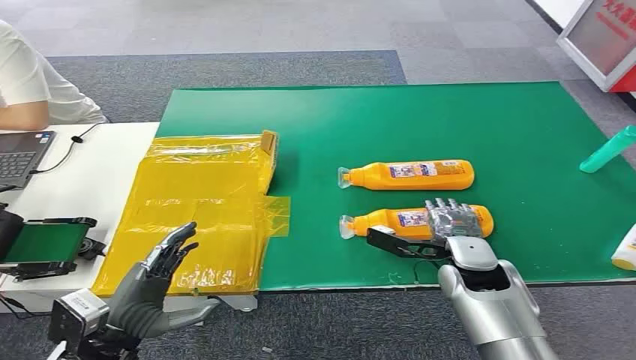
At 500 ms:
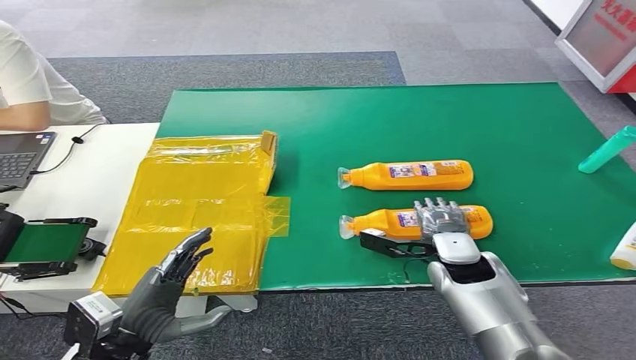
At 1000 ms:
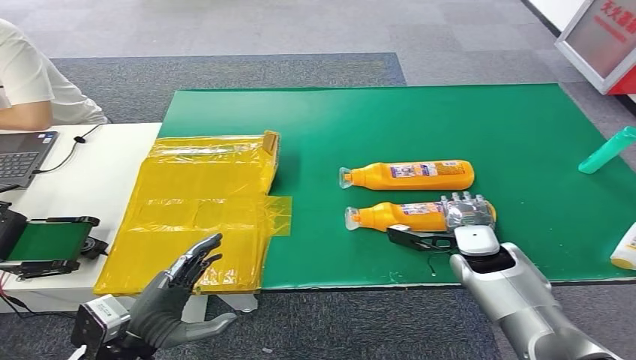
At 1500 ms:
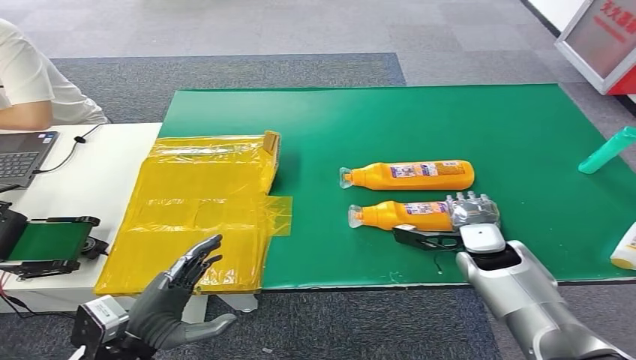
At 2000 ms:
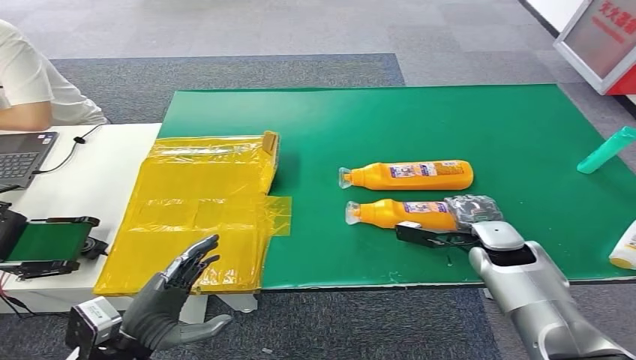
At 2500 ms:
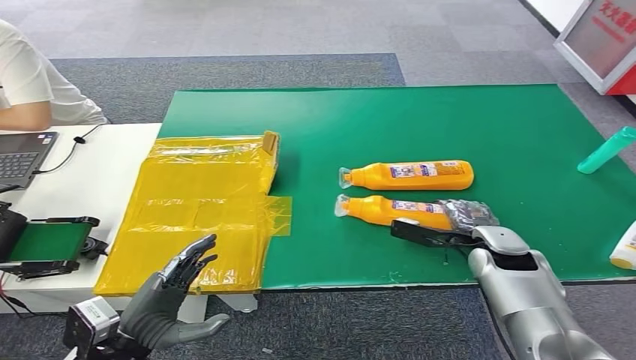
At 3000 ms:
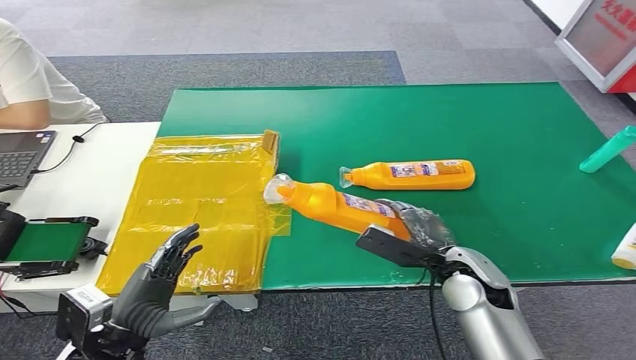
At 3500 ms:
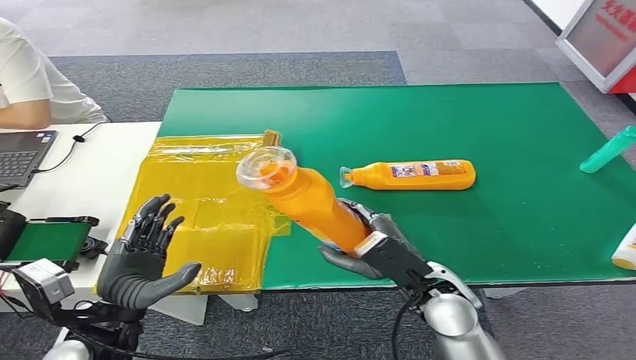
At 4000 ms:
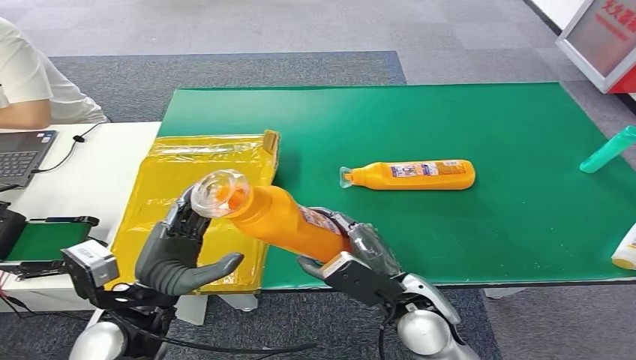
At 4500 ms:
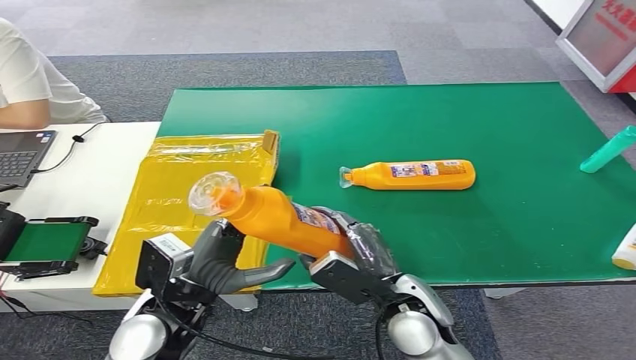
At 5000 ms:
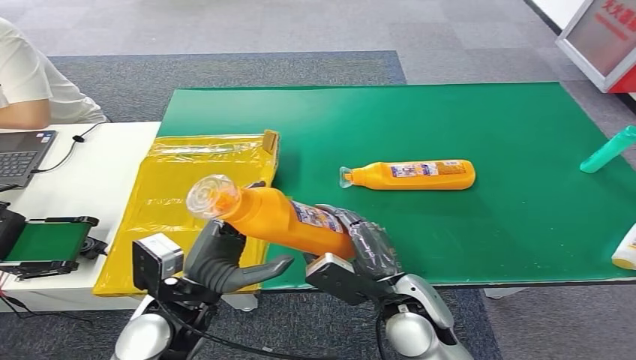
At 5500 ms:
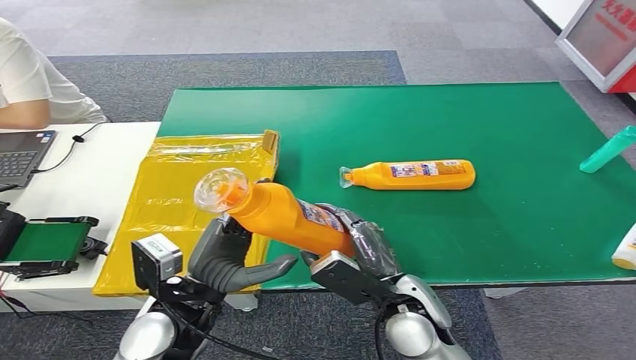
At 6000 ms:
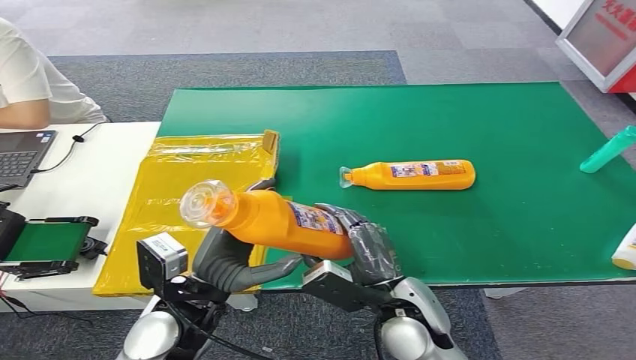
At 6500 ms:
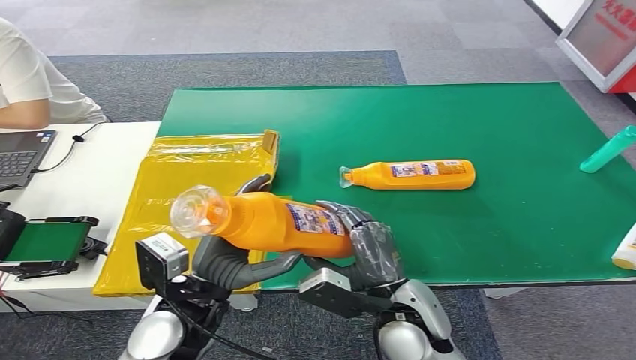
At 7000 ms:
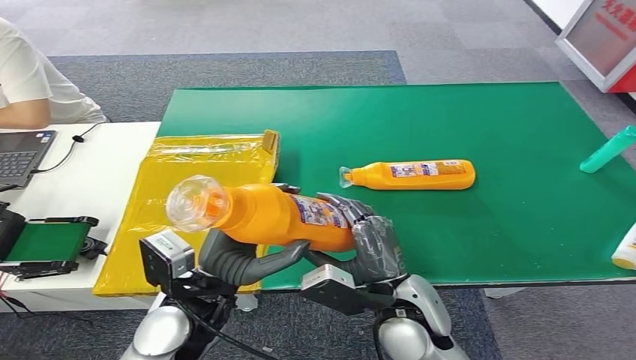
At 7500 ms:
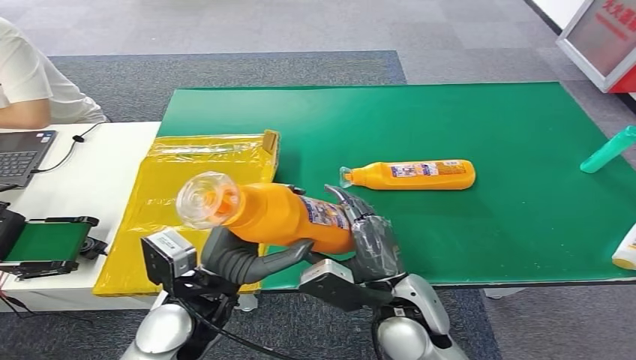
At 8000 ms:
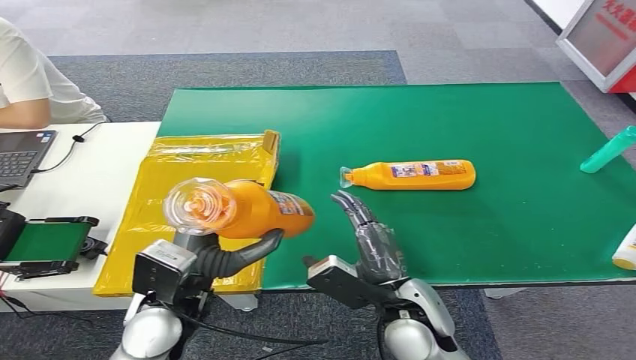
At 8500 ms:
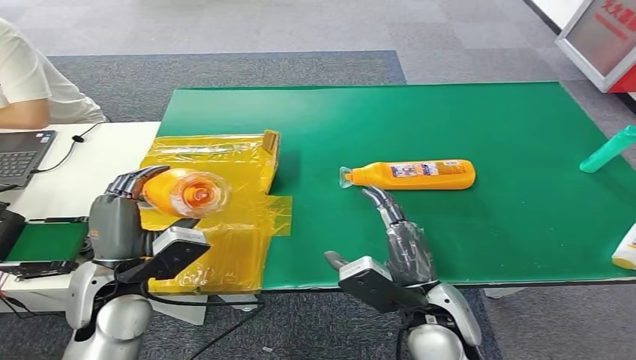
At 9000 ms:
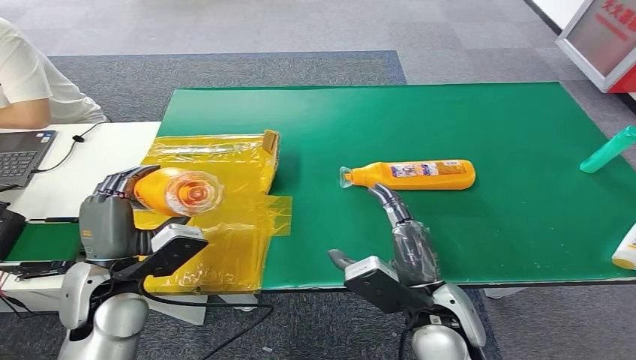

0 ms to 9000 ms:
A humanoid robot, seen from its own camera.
Step, 0 ms to 3500 ms: Pick up the bottle from the table.
4500 ms to 7000 ms: The hands make only small movements.
7000 ms to 9000 ms: The left hand is displaced to the left by about 10 cm.

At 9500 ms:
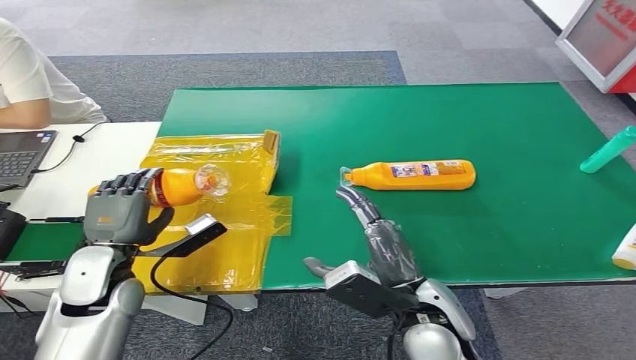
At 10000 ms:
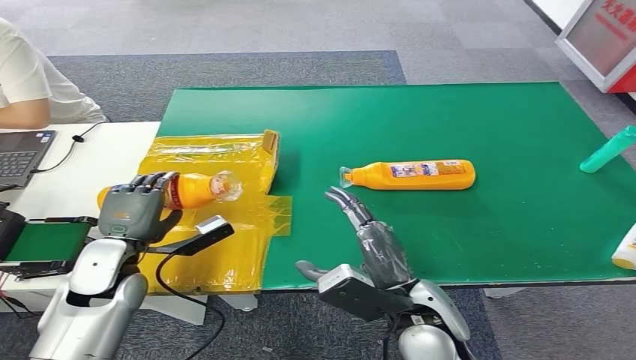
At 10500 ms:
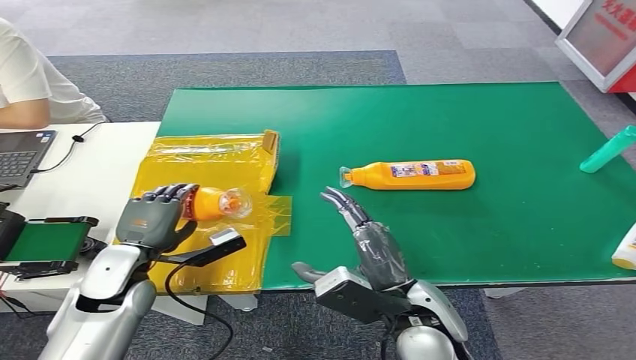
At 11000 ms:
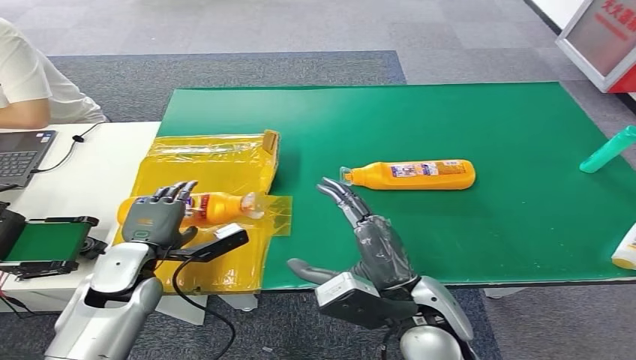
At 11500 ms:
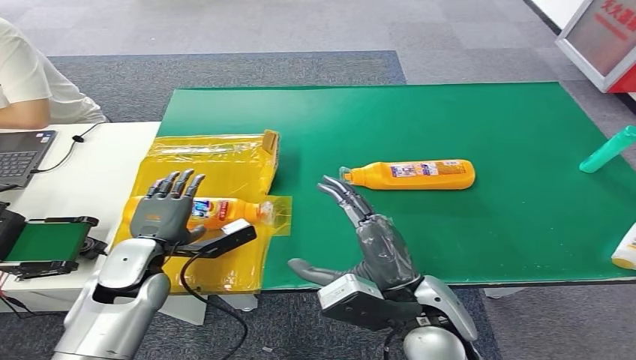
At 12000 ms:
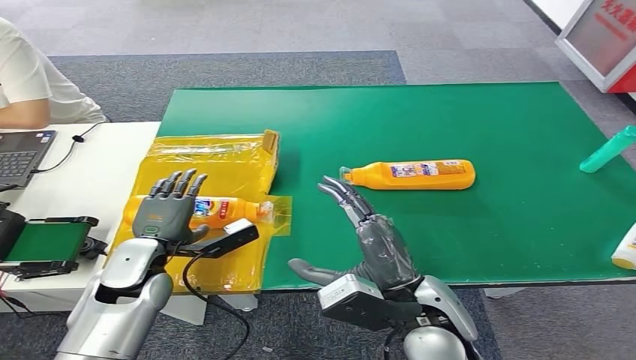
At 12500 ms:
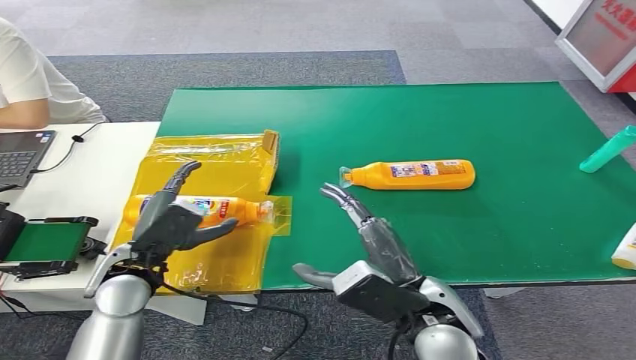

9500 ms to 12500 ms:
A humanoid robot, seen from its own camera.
Step, 9500 ms to 12500 ms: Turn the bottle to the front side.
9500 ms to 11000 ms: The hands move only a little.
11000 ms to 12500 ms: The left hand changes place by about 5 cm.

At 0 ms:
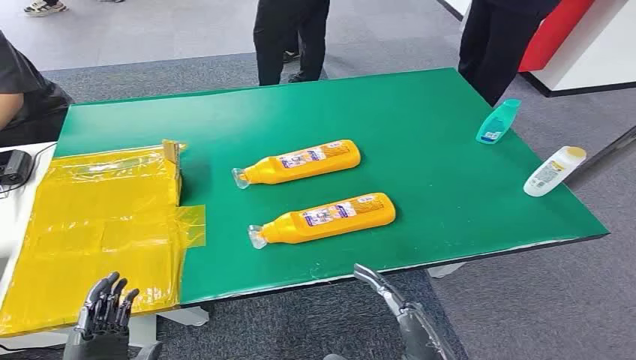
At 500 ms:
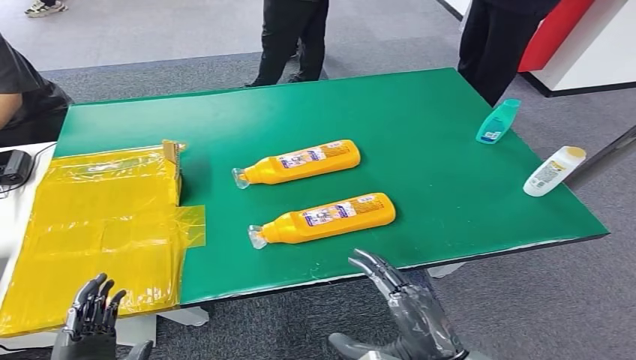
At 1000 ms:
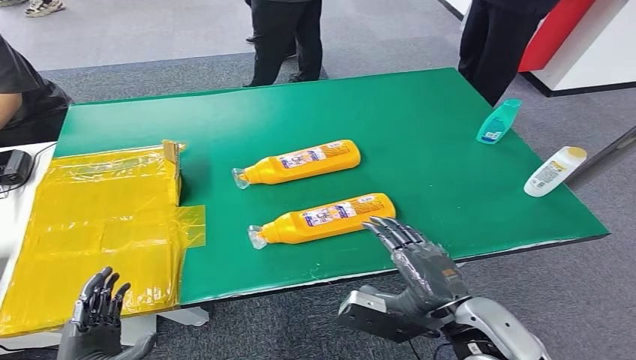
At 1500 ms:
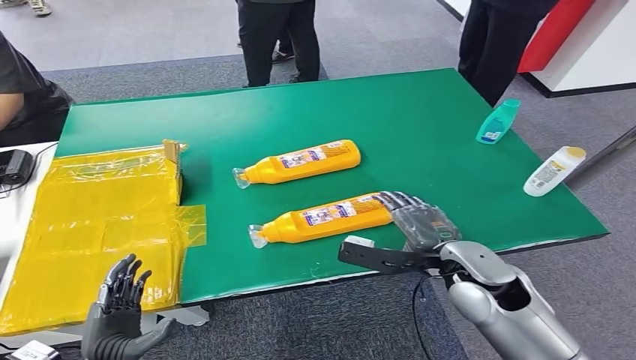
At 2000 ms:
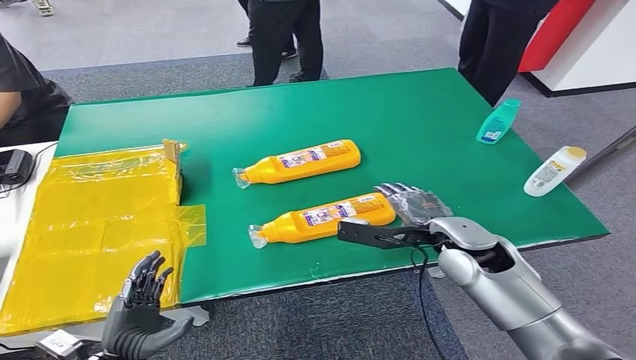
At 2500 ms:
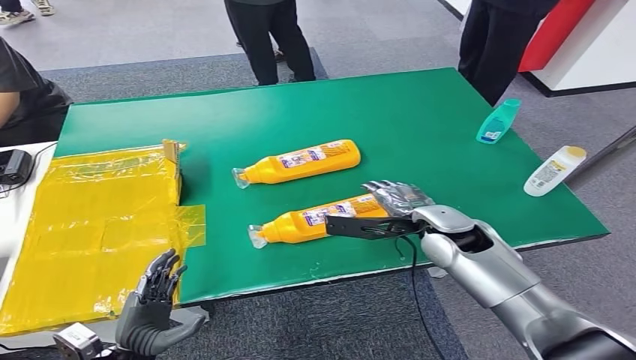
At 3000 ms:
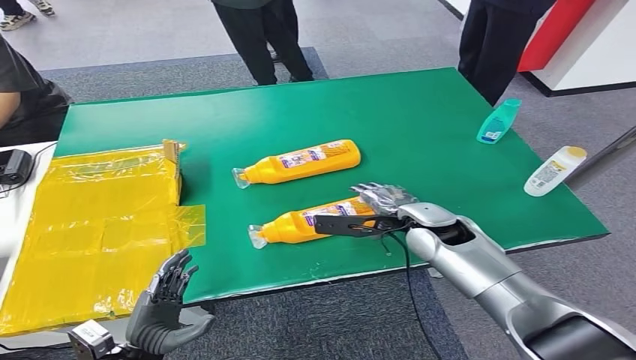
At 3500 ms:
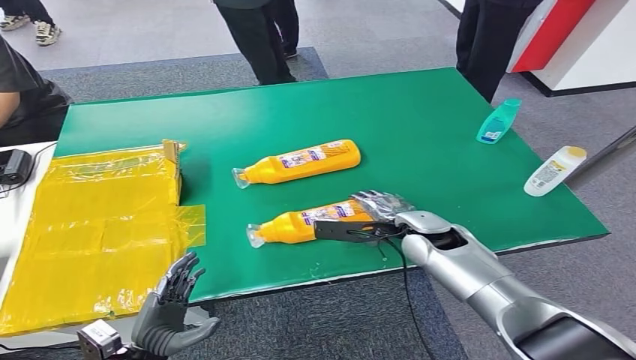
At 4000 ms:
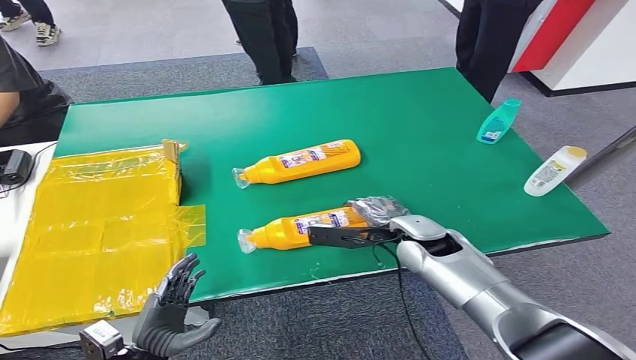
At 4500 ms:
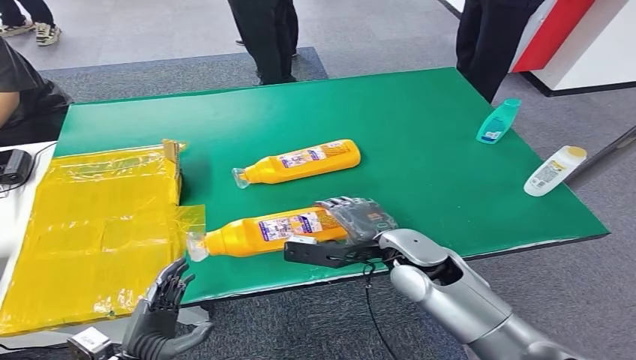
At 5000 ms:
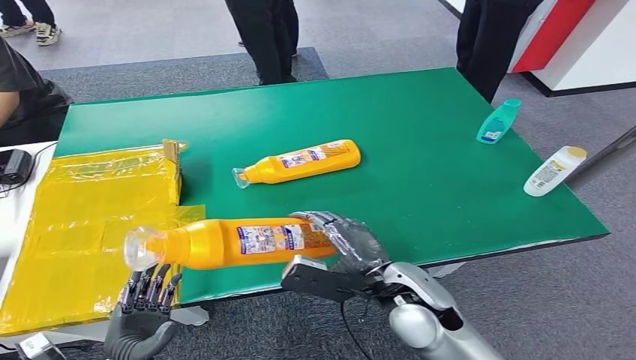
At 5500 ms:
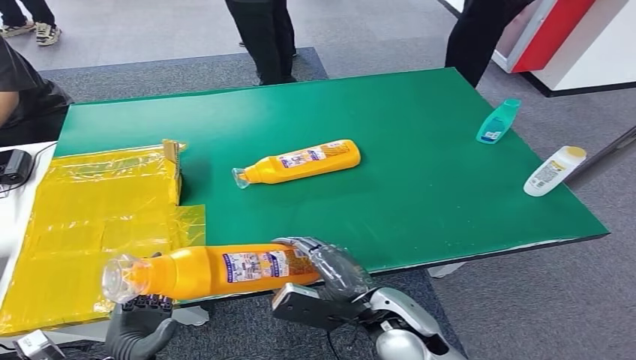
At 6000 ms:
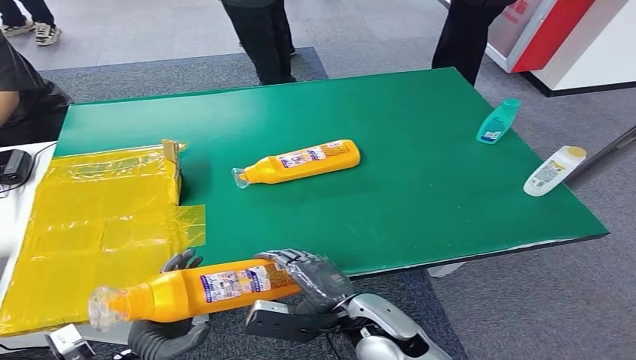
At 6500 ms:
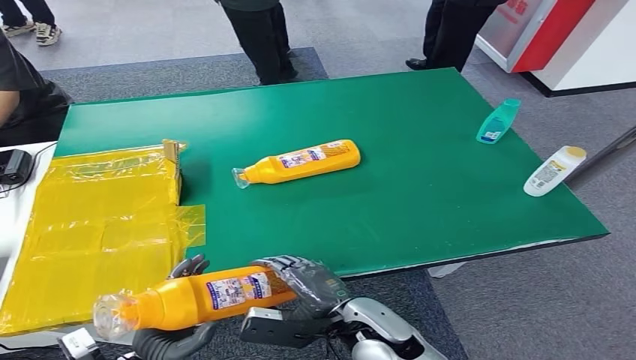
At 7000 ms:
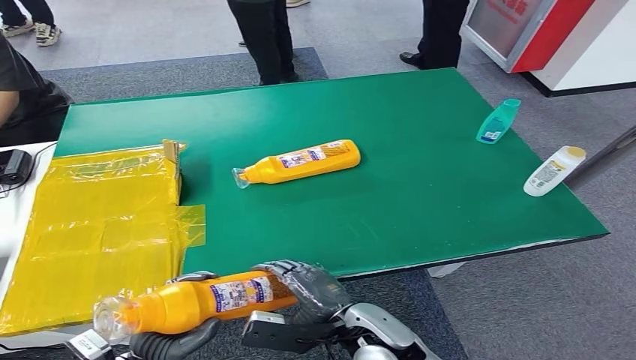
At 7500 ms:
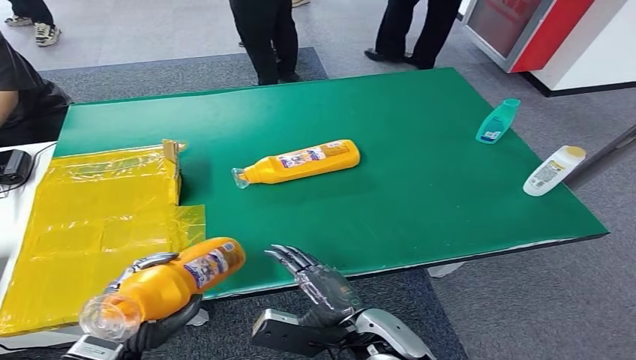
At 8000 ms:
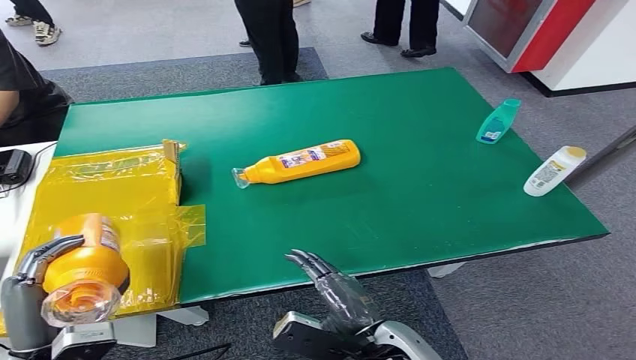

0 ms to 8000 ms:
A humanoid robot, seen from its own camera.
Step, 0 ms to 5000 ms: Pick up the bottle from the table.
2000 ms to 4000 ms: The right hand shifts roughly 5 cm to the left.
